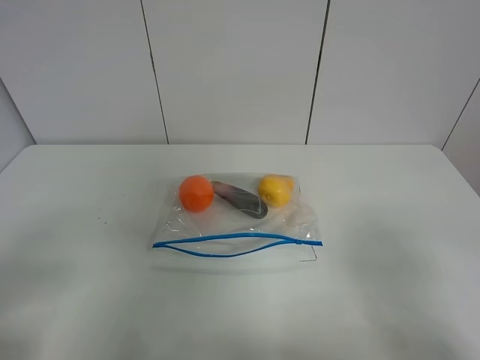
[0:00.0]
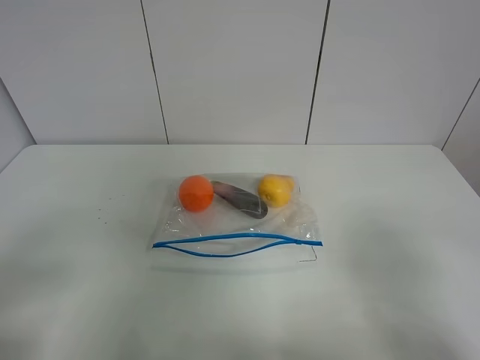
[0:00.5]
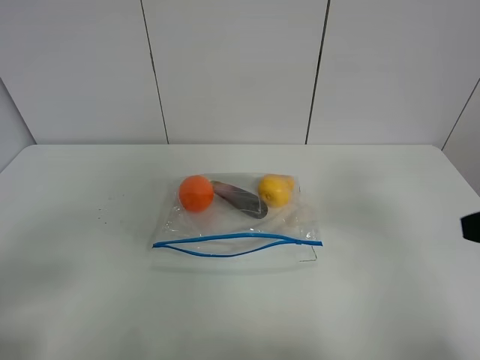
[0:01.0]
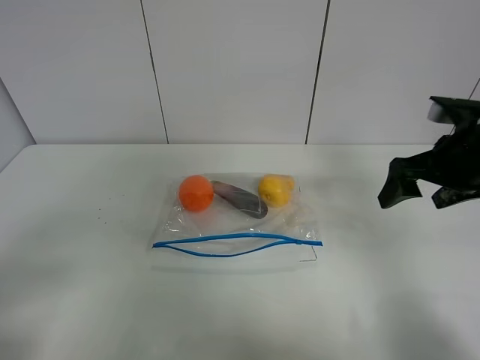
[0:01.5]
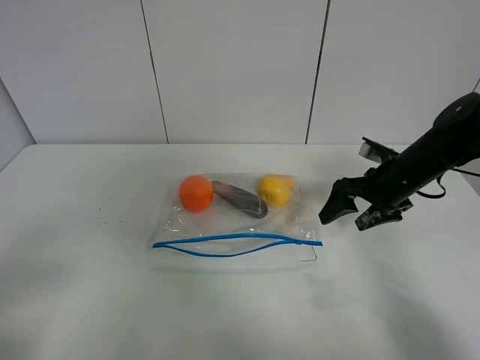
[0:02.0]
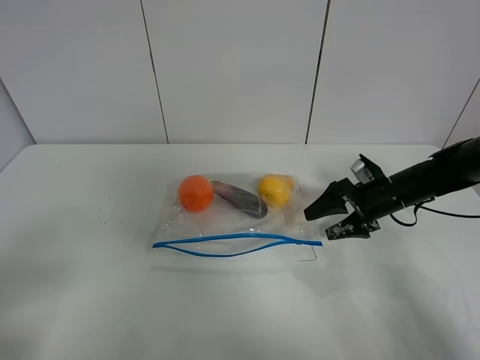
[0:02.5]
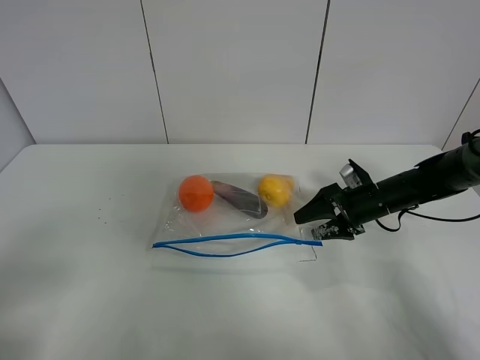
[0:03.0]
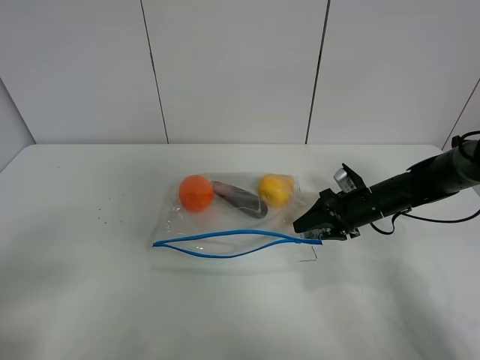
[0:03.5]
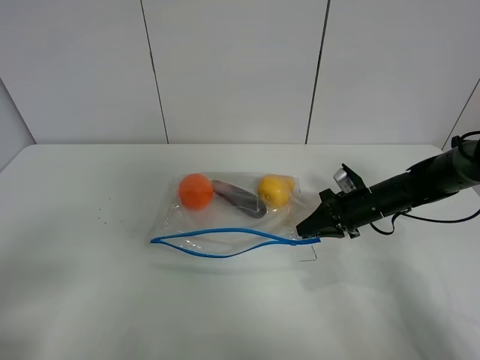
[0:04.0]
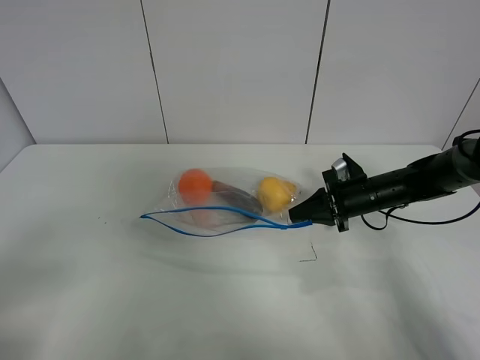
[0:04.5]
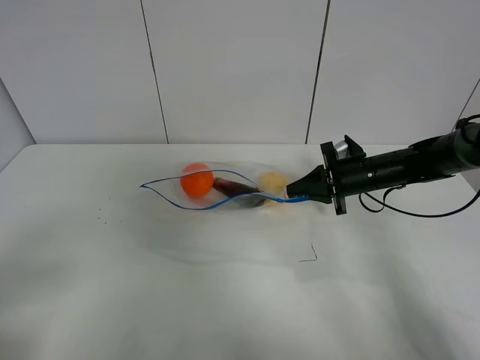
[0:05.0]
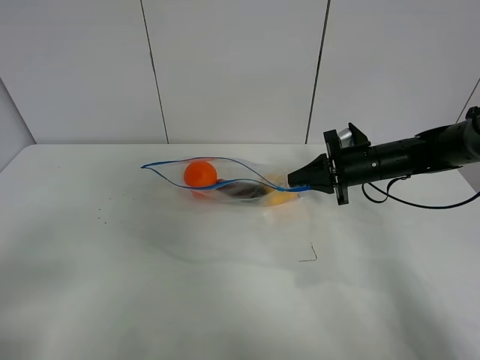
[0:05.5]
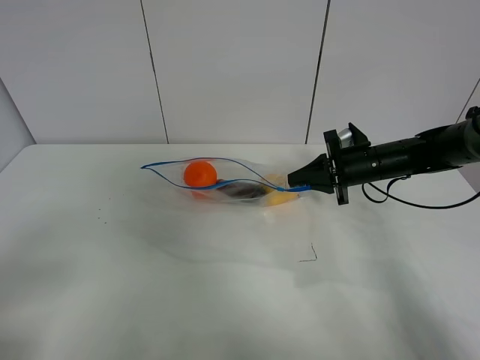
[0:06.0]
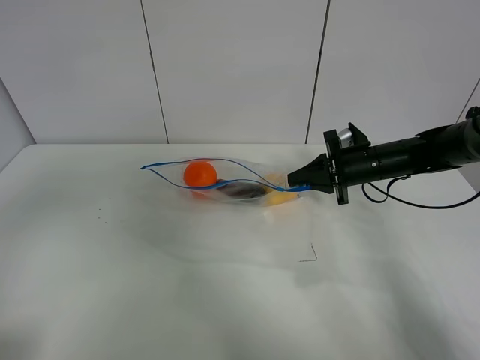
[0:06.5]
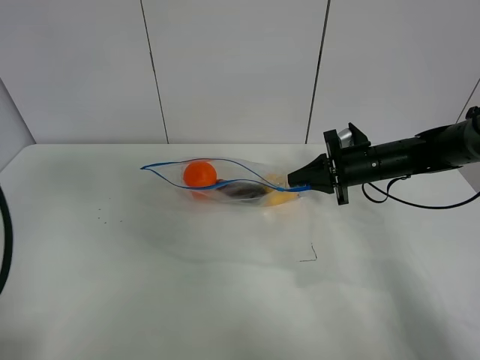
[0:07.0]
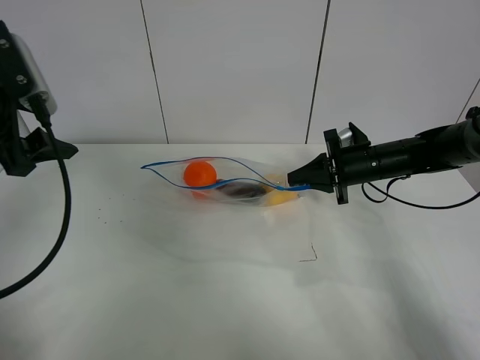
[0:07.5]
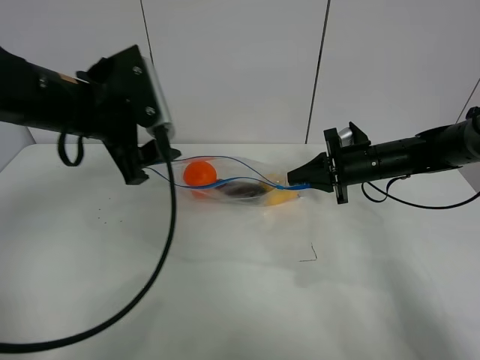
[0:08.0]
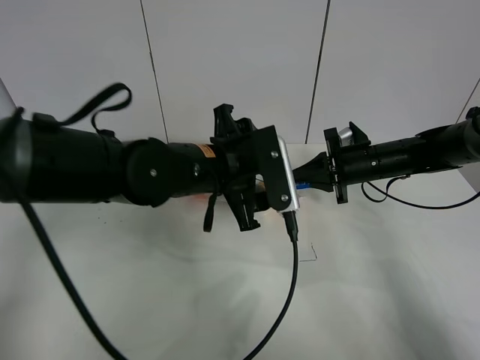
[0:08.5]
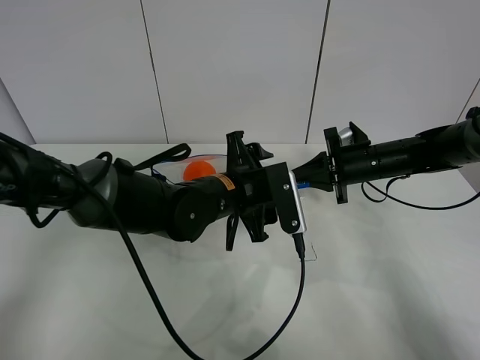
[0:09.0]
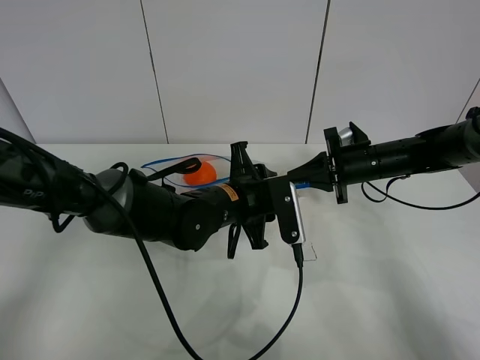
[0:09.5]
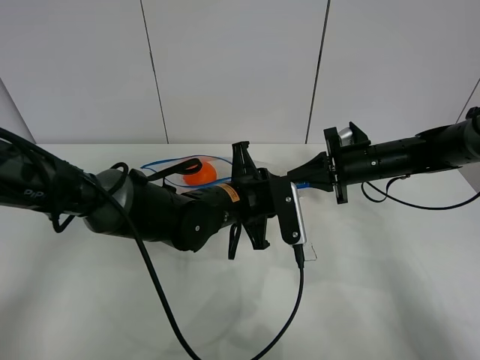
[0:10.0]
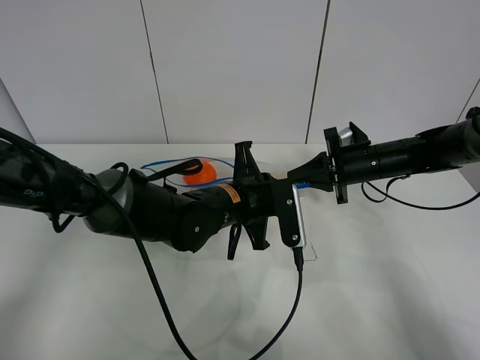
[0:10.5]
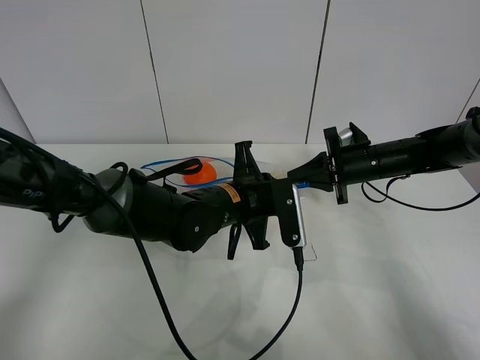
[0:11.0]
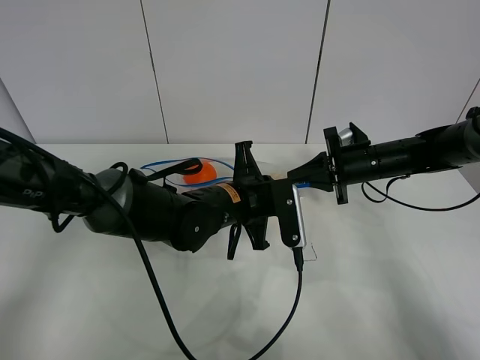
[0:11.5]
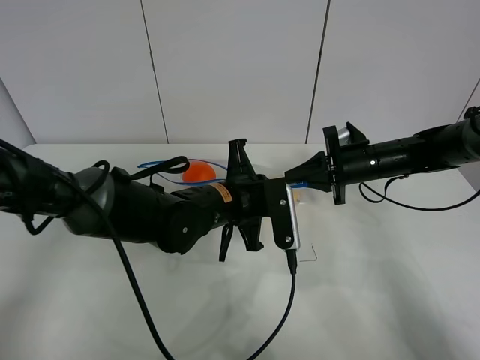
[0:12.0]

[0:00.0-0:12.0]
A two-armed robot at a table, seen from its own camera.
Step, 0:00.0 to 0:04.0: Grasp the fruit bag with right gripper.
Step, 0:04.5 to 0:06.0: Lift the fruit bag with your right gripper.
0:00.0 to 0:02.0: The right gripper is displaced forward by approximately 35 cm.
0:02.0 to 0:04.0: The right gripper heads downward, covering approximately 10 cm, and closes up.
0:04.0 to 0:06.0: The right gripper moves upward, approximately 5 cm.
0:06.0 to 0:08.0: The left gripper shifts approximately 30 cm forward and to the right.
0:08.0 to 0:10.0: The left gripper goes approximately 20 cm to the right and downward, and closes.
0:10.0 to 0:12.0: The left gripper closes its fingers.

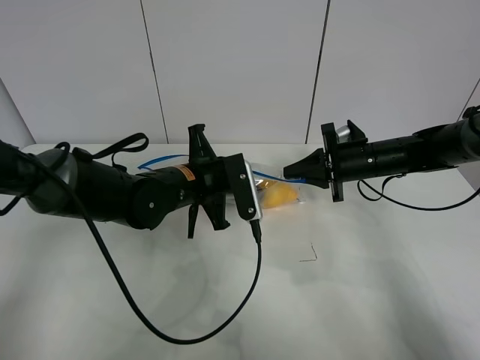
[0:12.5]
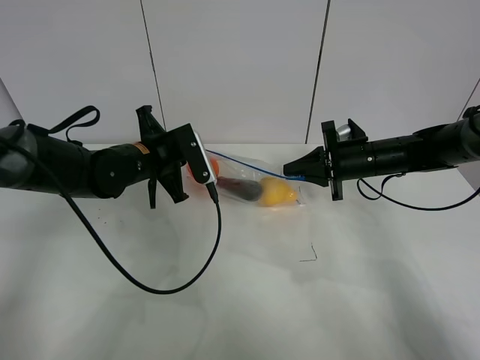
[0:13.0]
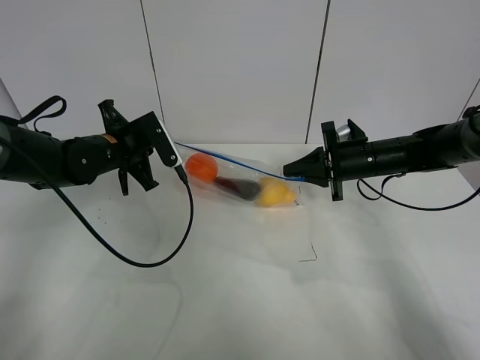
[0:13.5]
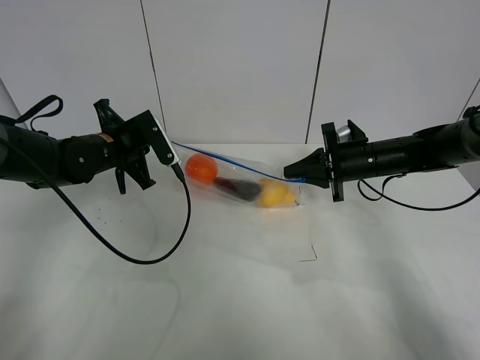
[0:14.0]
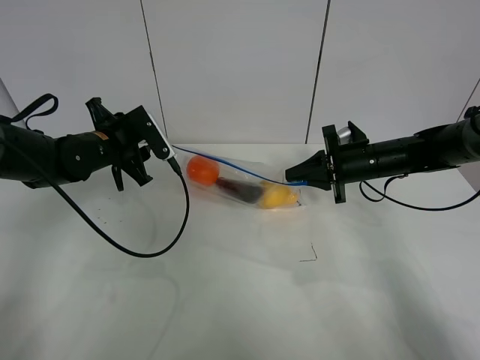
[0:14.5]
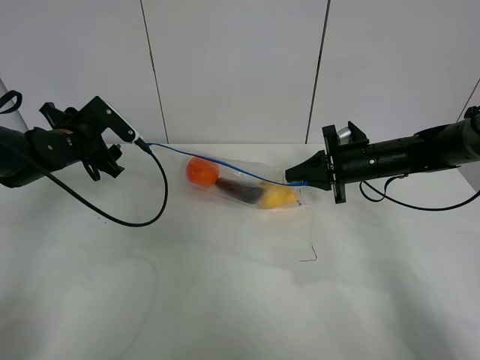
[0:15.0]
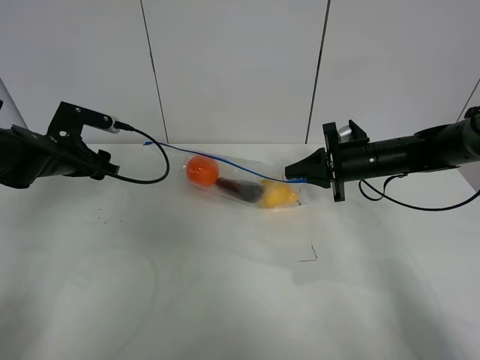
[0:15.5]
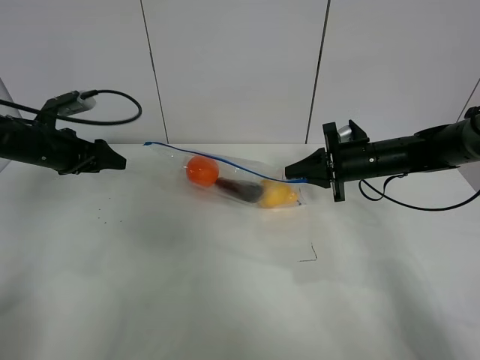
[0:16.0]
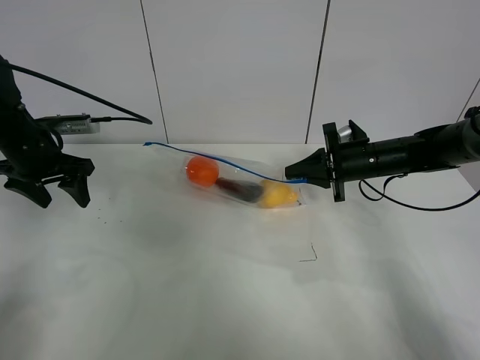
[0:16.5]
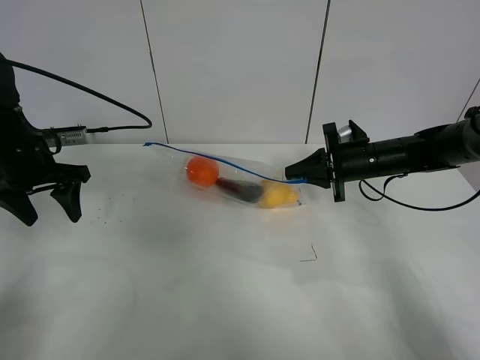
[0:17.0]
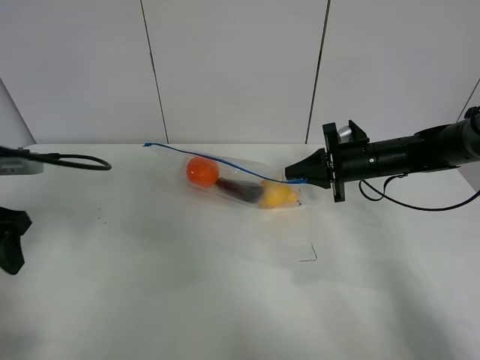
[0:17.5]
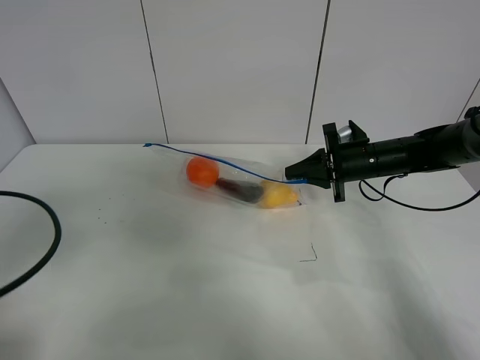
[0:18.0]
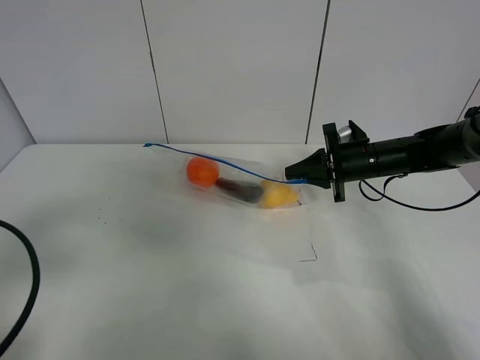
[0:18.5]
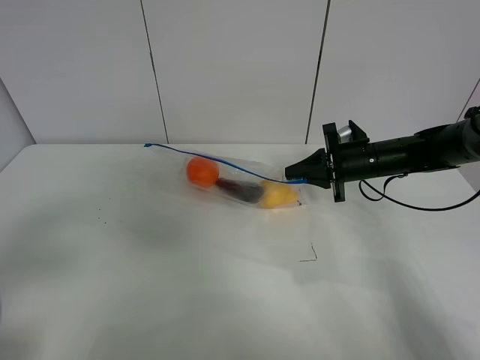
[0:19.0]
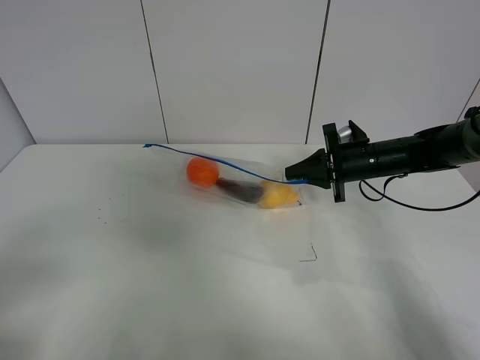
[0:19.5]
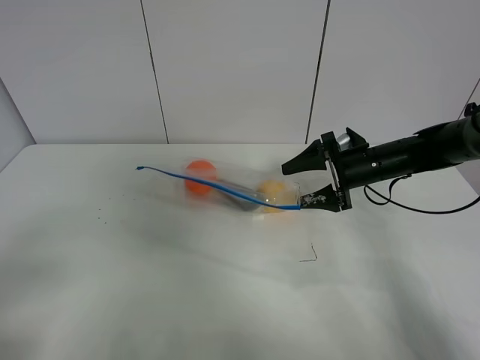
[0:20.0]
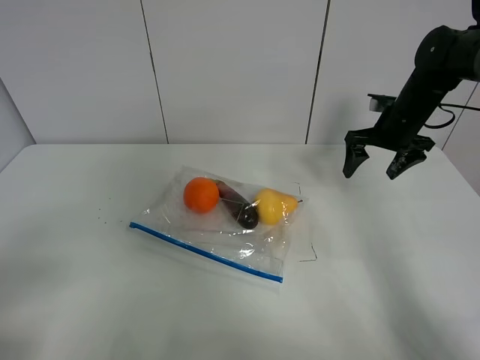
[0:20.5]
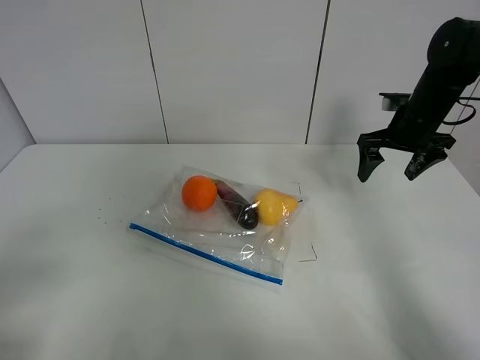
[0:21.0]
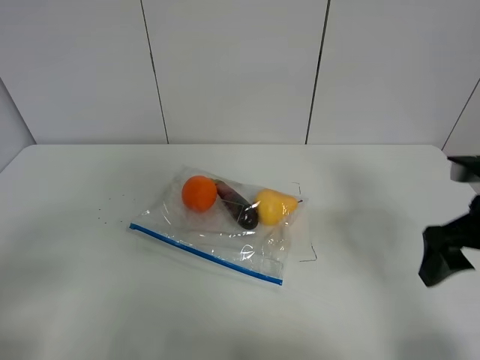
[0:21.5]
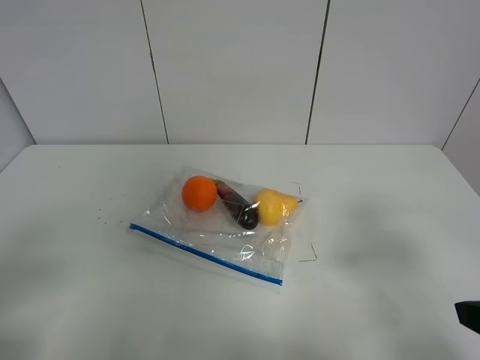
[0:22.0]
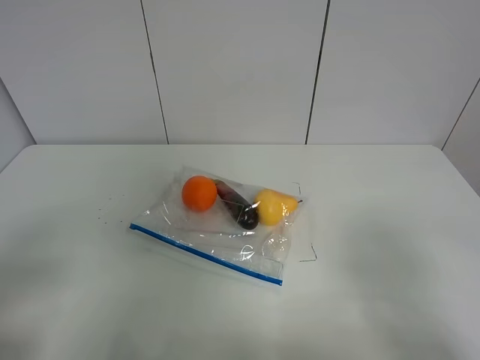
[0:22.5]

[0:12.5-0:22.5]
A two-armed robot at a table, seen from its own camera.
Step, 0:12.5 to 0:14.5: Pull the fruit bag with left gripper.
0:12.5 to 0:14.5: The left gripper heads to the left and forward, covering about 15 cm, and opens its fingers.
0:14.5 to 0:16.5: The left gripper moves to the left, some 10 cm.
0:16.5 to 0:18.5: The left gripper heads backward, covering some 30 cm.
0:18.5 to 0:20.5: The left gripper moves backward, about 10 cm. The right gripper is displaced upward and to the right by some 10 cm, and opens.
0:20.5 to 0:22.5: The right gripper moves backward, roughly 40 cm.

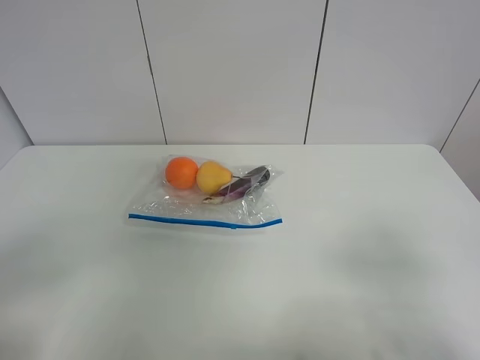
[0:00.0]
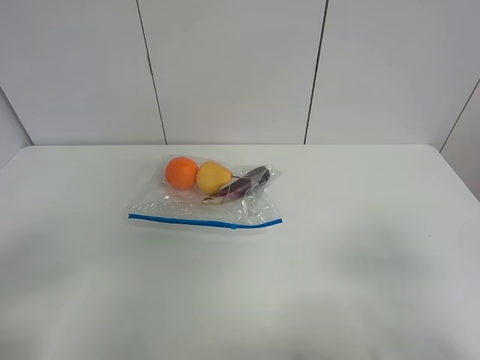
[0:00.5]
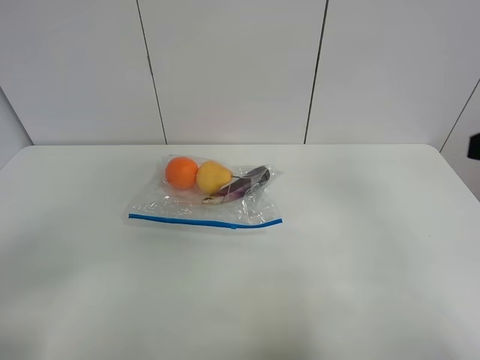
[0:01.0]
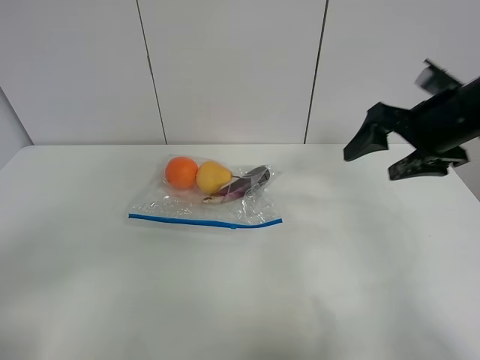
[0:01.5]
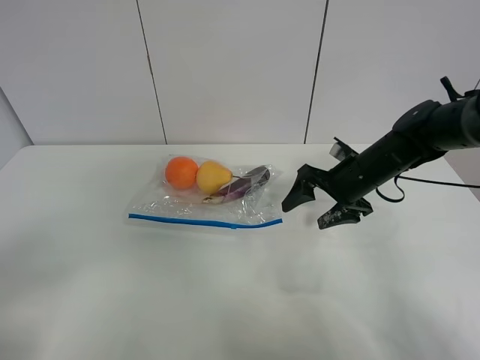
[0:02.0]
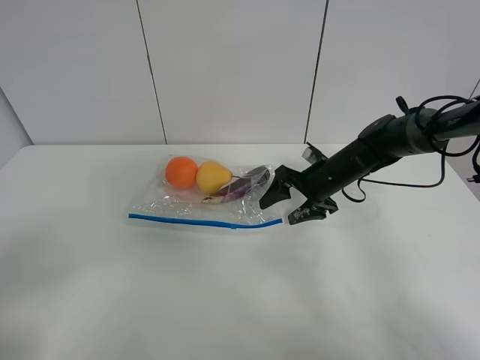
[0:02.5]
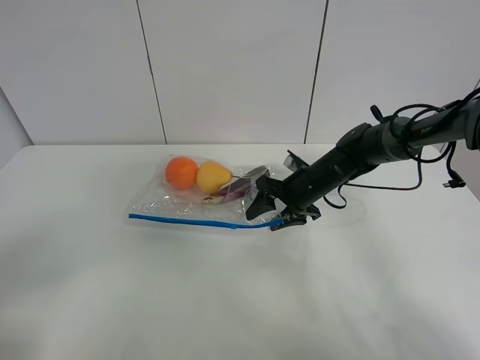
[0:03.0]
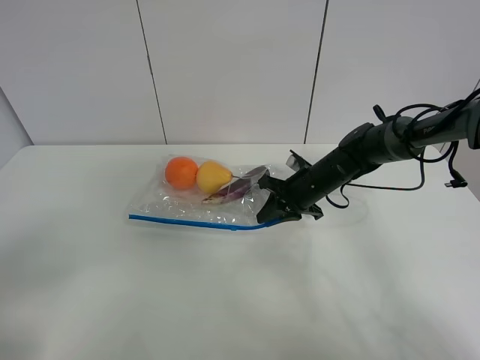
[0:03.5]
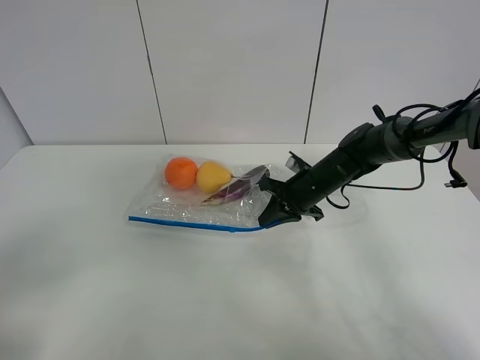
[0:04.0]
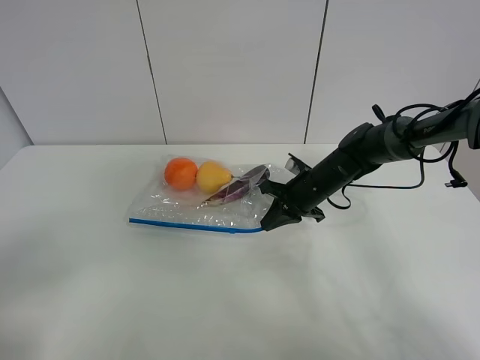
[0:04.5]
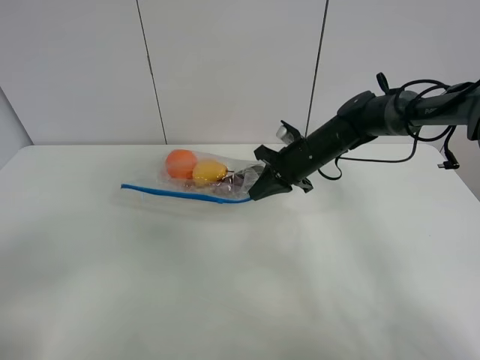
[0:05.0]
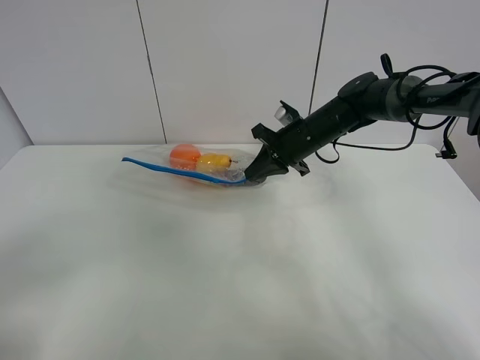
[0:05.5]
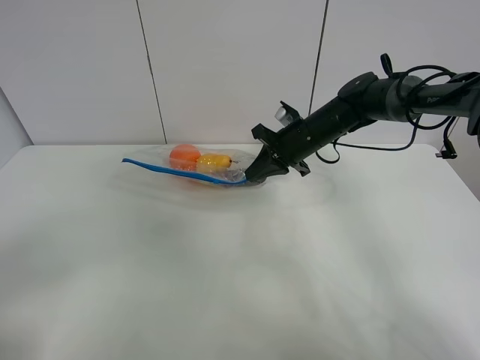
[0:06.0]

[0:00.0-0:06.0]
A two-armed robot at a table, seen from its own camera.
Step, 0:00.0 to 0:04.0: Grasp the fruit bag with right gripper.
Step, 0:04.5 to 0:05.5: Lift the fruit bag with your right gripper.
0:00.0 to 0:02.0: The right gripper goes about 35 cm forward.
0:02.0 to 0:04.0: The right gripper moves to the left and downward, some 5 cm, and closes its fingers.
0:04.0 to 0:06.0: The right gripper is displaced upward by approximately 10 cm.
